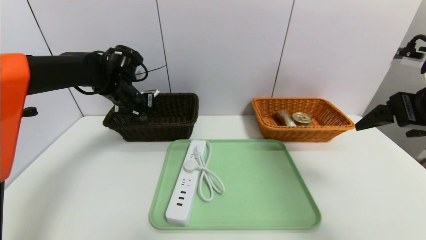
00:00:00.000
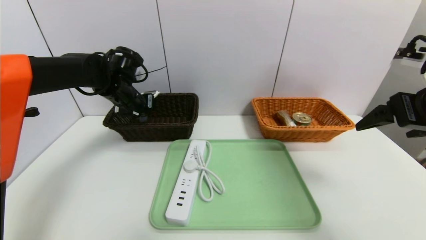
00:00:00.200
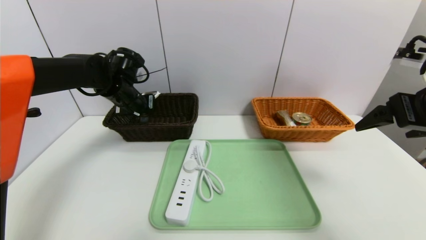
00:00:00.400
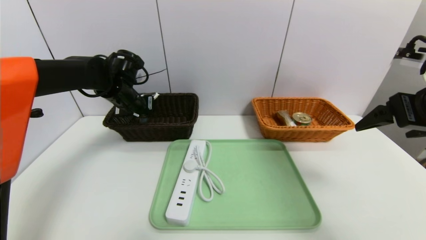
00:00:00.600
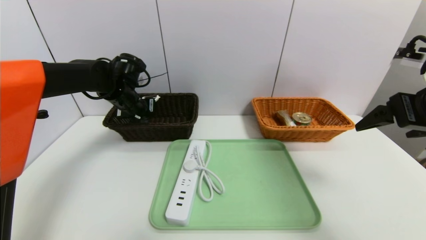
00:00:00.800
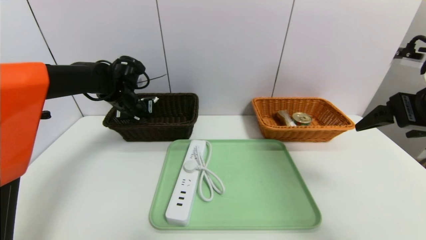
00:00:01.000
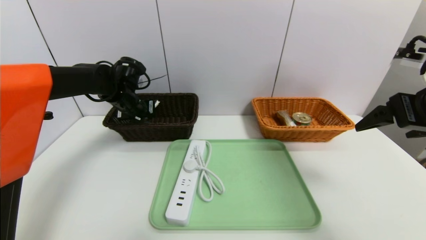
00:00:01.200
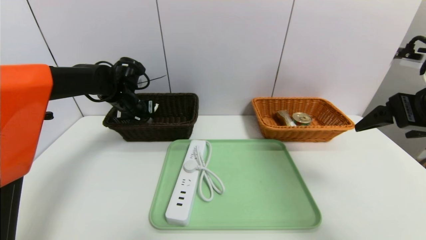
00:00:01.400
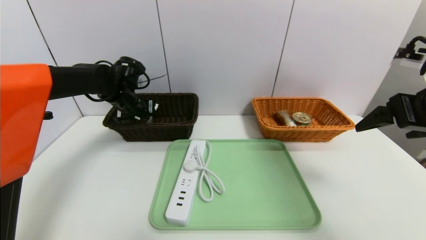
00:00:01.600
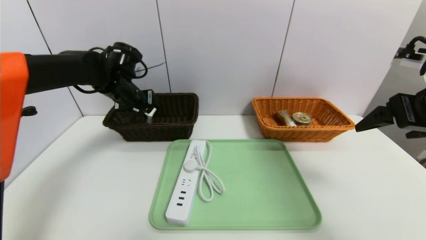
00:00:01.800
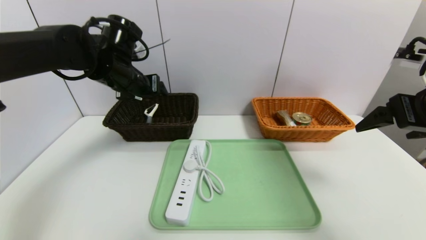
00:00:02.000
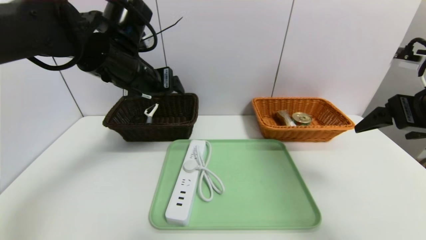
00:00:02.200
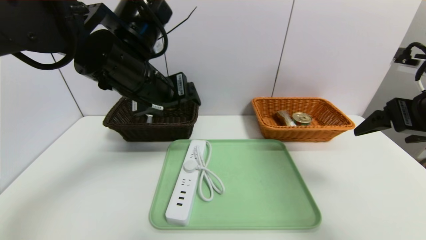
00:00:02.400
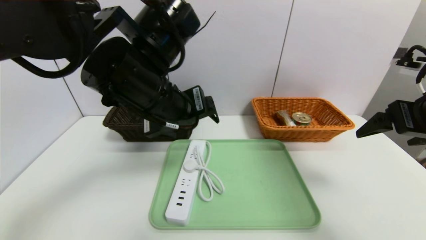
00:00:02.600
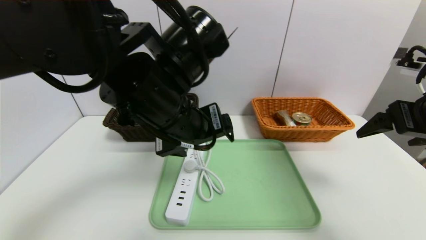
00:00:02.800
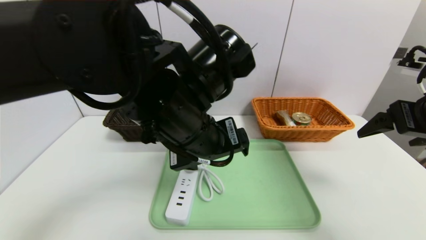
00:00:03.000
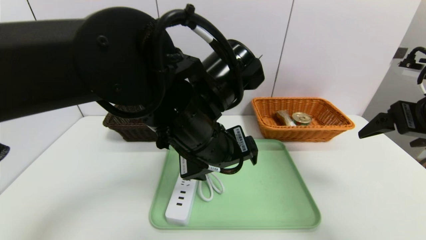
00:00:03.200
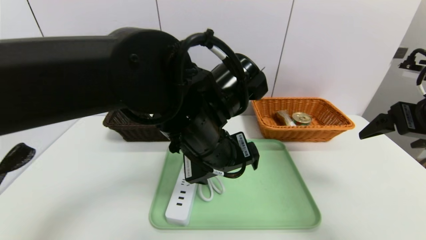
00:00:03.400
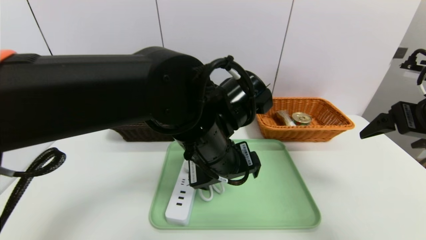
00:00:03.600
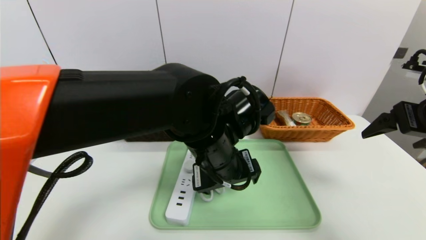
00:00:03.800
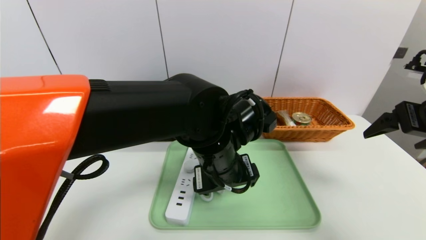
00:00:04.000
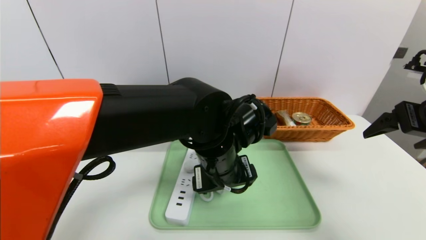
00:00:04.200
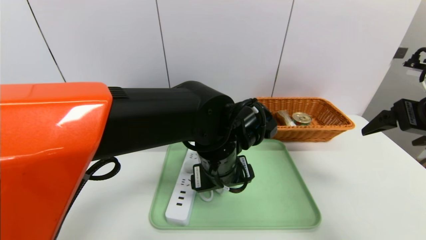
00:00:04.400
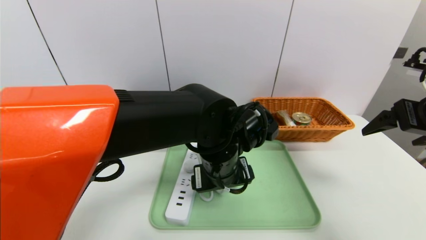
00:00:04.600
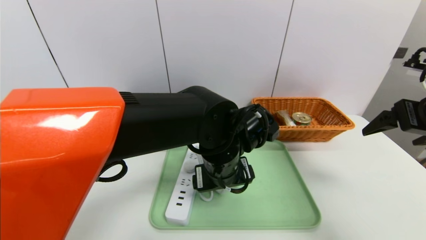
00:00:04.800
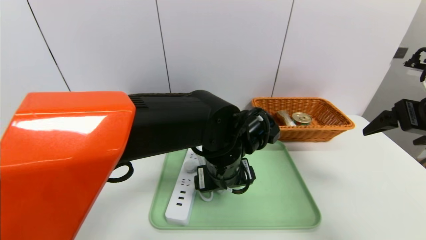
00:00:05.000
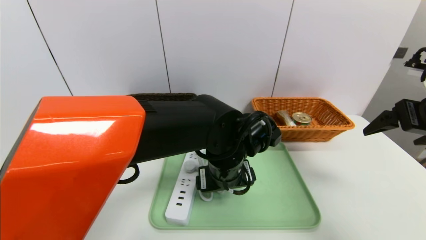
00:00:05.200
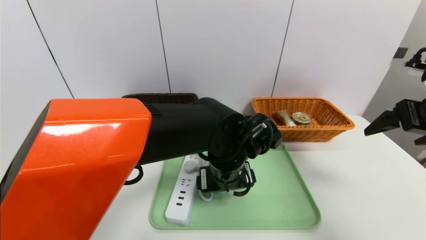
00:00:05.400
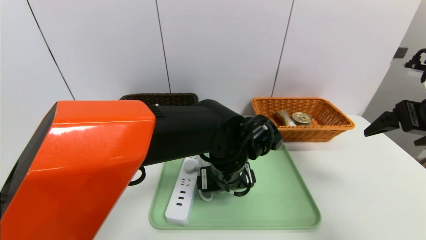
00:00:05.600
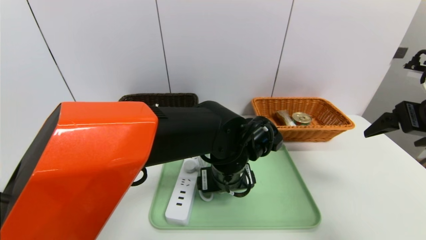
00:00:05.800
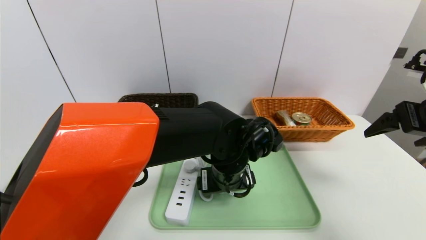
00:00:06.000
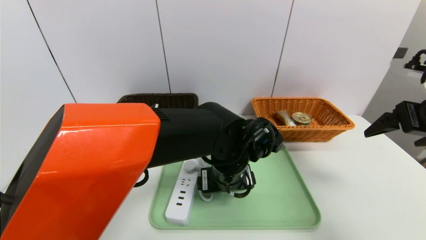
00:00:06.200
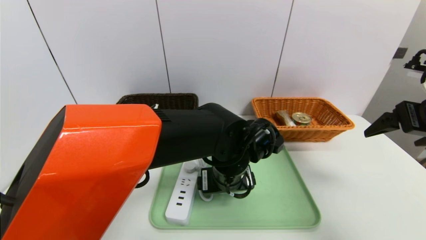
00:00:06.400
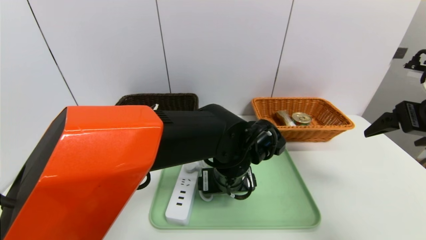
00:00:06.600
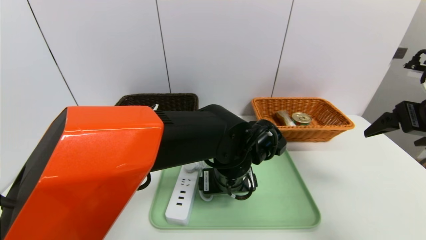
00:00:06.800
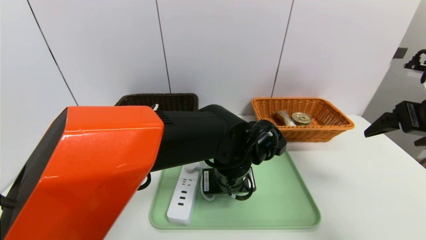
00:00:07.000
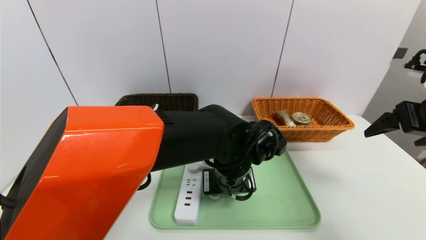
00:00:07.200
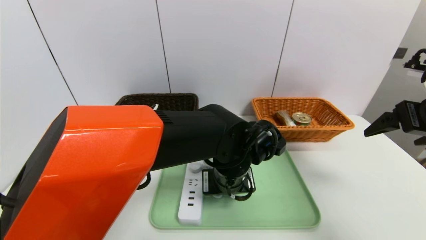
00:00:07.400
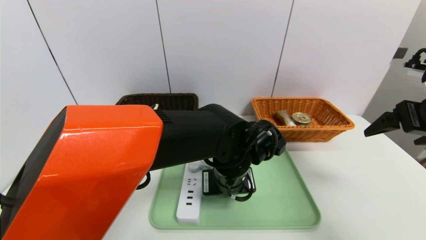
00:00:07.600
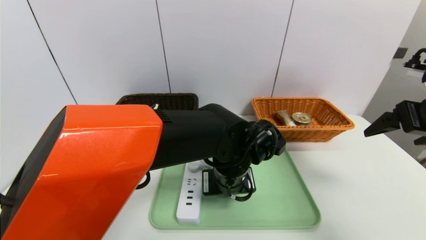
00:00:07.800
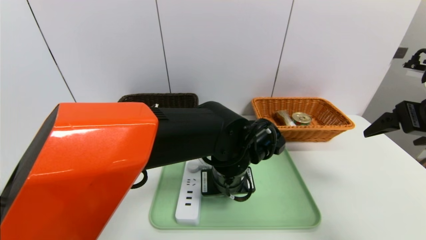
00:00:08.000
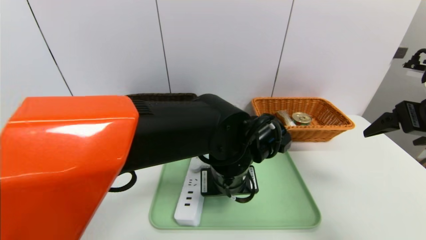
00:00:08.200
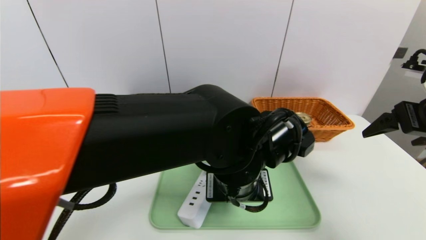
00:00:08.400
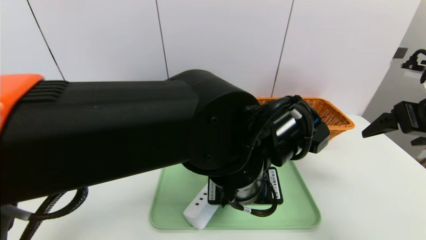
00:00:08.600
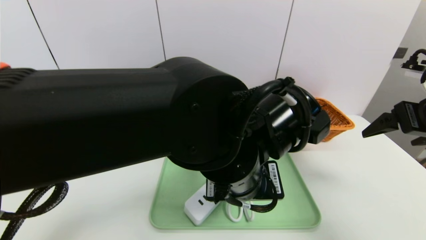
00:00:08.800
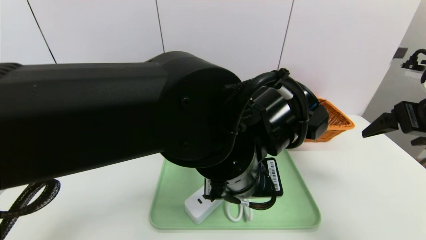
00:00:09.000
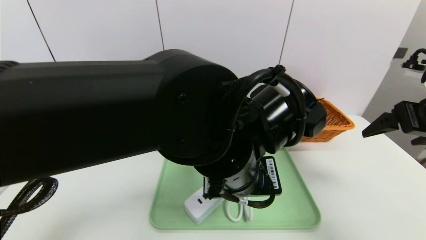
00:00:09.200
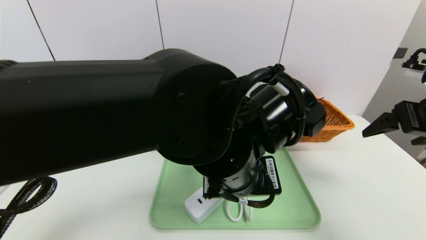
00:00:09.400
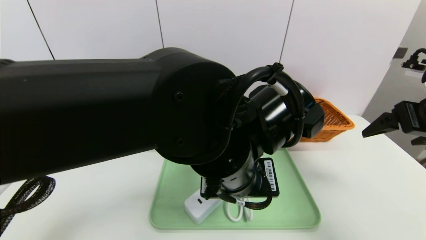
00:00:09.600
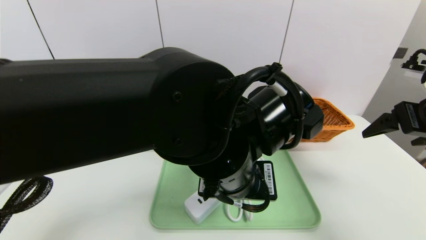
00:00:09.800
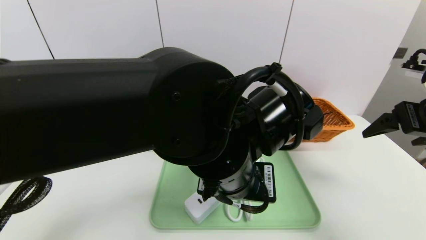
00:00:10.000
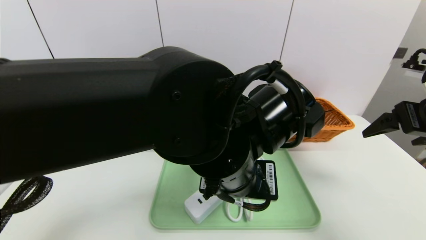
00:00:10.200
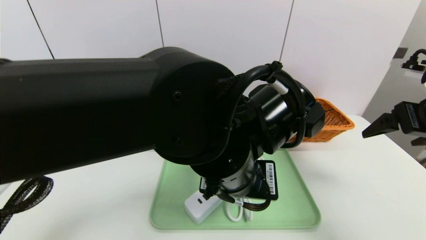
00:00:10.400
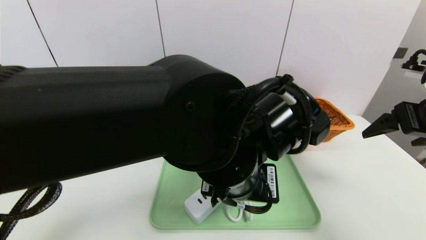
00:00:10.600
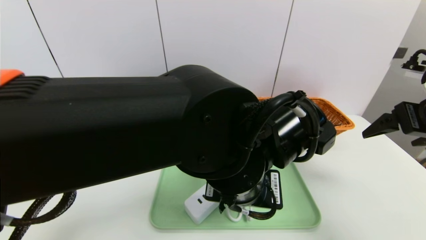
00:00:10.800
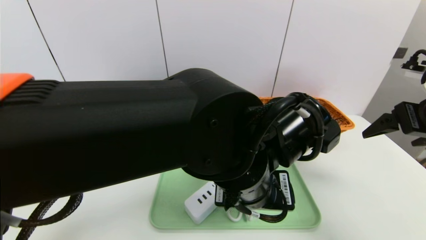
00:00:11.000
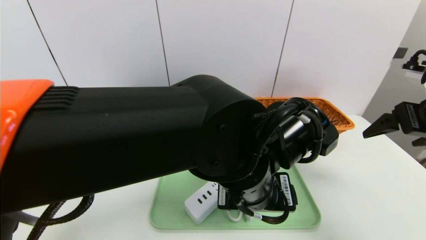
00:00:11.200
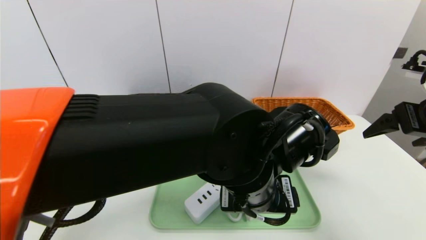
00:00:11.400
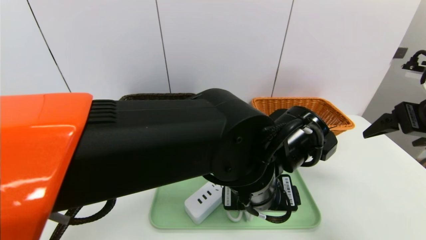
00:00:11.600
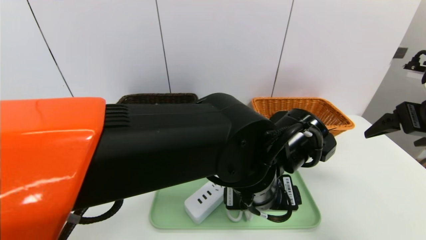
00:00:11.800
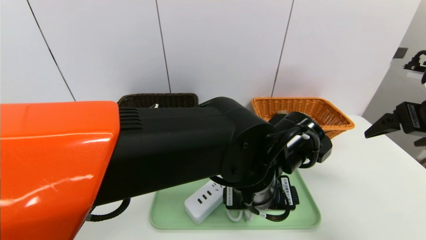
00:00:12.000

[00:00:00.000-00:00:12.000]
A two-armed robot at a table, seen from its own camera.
Task of the whole recording: place the food in the right basket with the right gripper, and place the non food items in the left basket with the left gripper.
Step, 00:00:00.000 to 00:00:02.000: Grasp the peeler and put it in the left basket.
00:00:00.000 to 00:00:01.600: The left gripper opens up.
00:00:01.600 to 00:00:03.000: The left gripper heads backward and to the right, covering approximately 30 cm.
00:00:03.000 to 00:00:04.400: The left gripper travels downward by roughly 10 cm.
00:00:06.000 to 00:00:07.600: The left gripper closes its fingers.
00:00:07.600 to 00:00:09.000: The left gripper travels upward and backward by approximately 10 cm.
00:00:09.000 to 00:00:10.400: The left gripper opens its fingers.
00:00:10.400 to 00:00:12.000: The left gripper travels downward by some 5 cm, and opens its fingers.

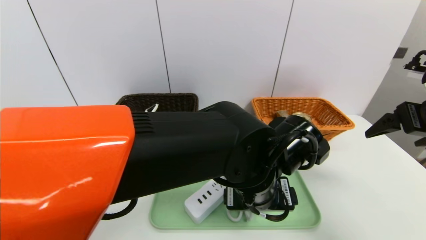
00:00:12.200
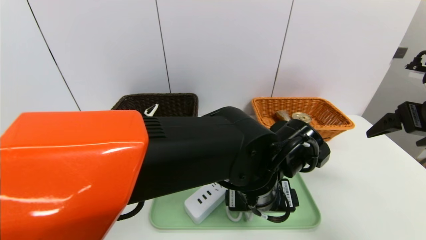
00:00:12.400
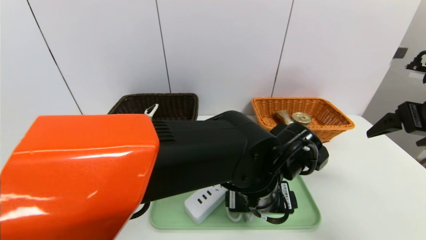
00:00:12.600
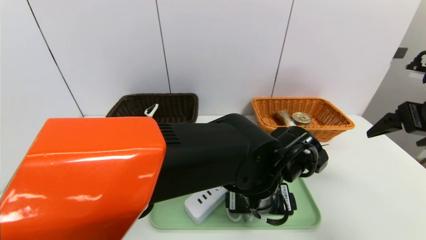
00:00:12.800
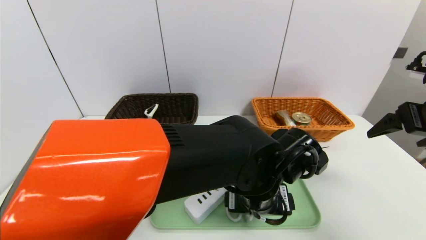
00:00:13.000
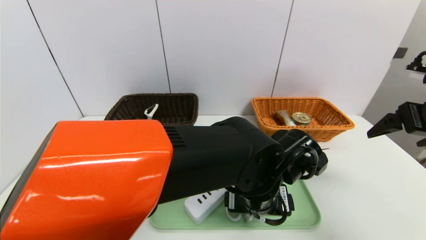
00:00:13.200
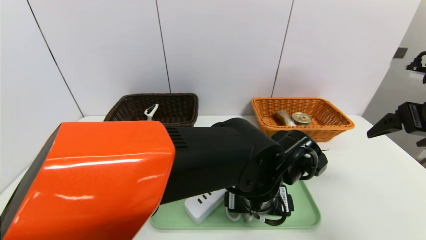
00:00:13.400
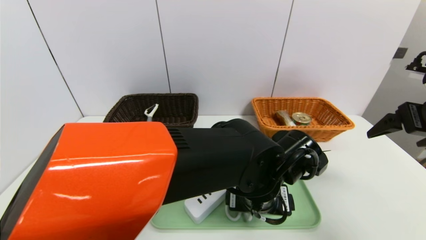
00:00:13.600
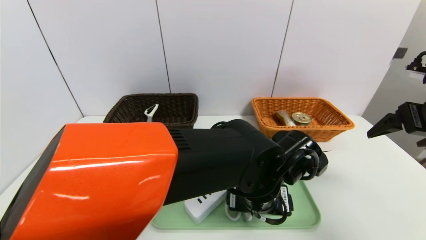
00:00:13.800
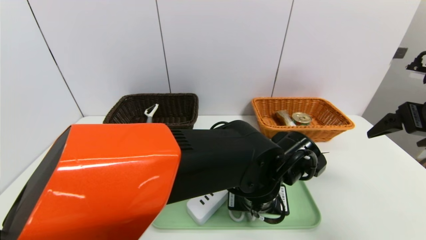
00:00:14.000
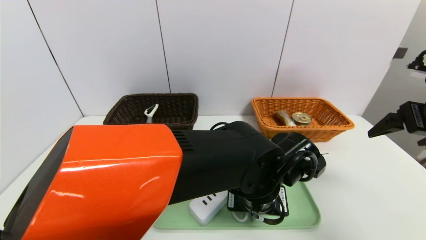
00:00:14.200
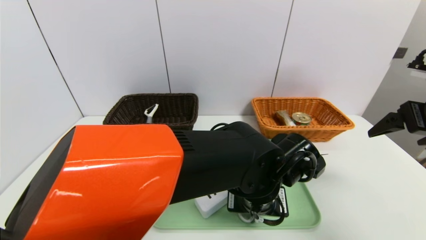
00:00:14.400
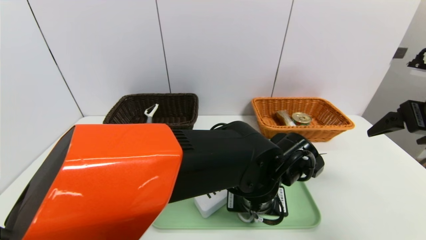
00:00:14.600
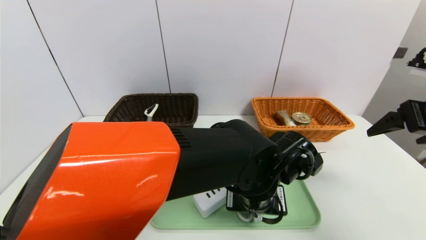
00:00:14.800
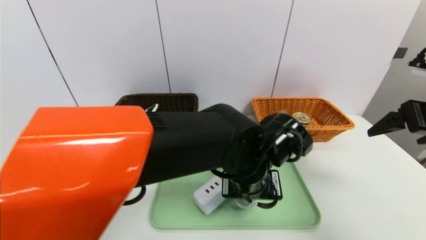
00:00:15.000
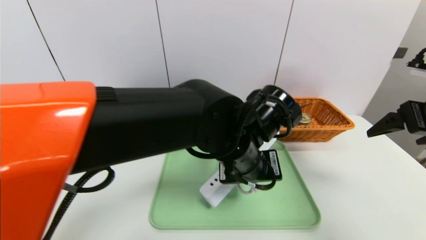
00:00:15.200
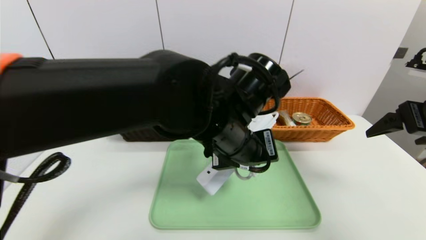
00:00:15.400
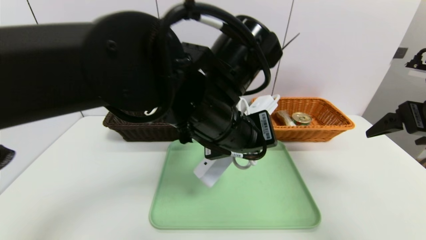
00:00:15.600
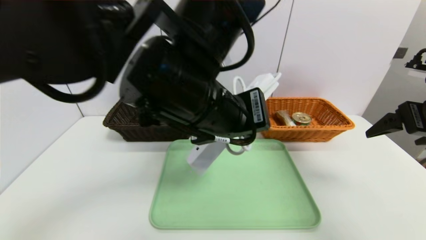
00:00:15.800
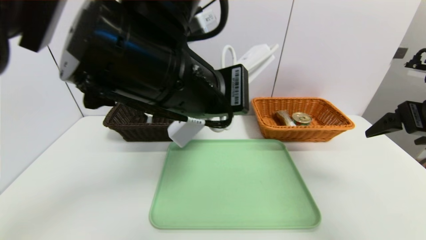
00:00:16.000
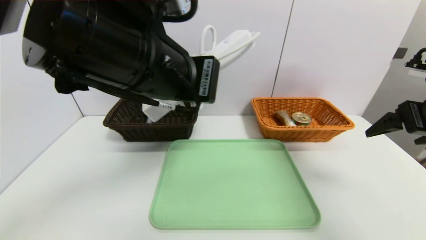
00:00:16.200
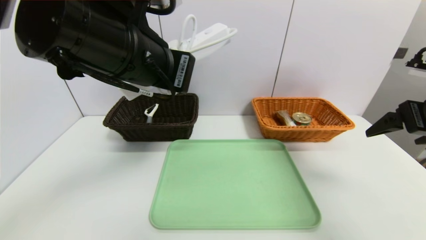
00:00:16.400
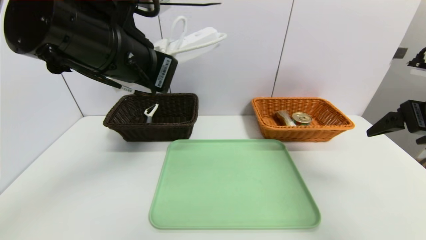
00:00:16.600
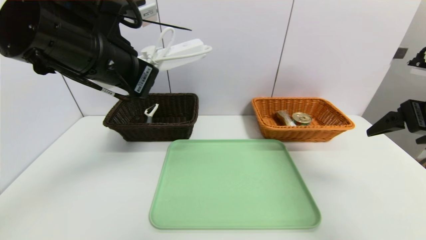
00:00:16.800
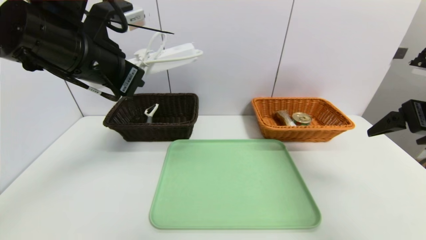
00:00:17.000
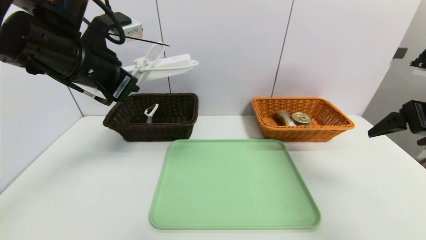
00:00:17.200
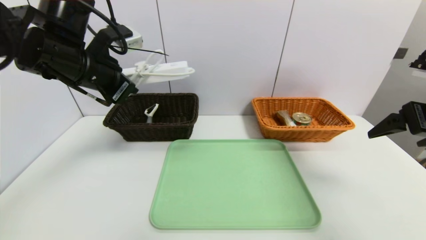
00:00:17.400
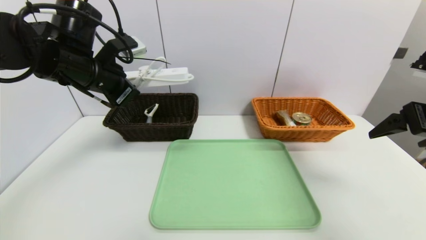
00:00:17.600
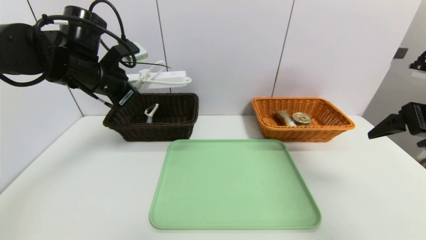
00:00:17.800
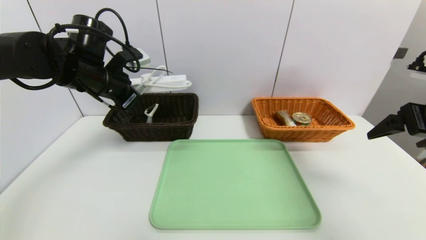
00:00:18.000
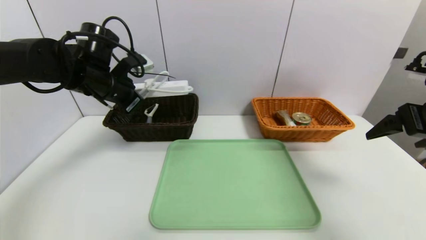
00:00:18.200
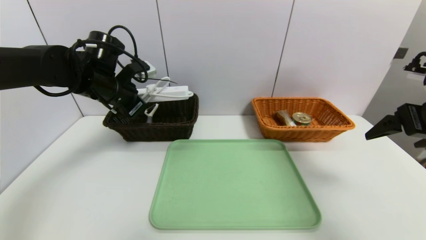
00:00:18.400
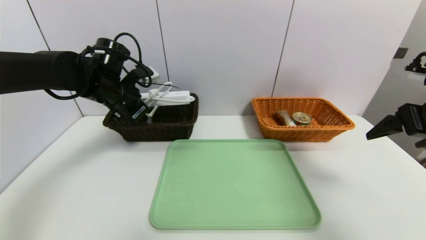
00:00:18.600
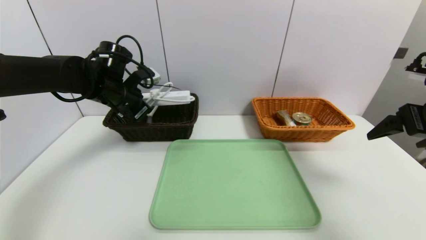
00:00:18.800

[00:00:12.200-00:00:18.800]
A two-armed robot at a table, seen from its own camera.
Task of the whole recording: place the food in the right basket with the right gripper, and place the non food items in the left basket with the left gripper.
00:00:13.800 to 00:00:15.400: The left gripper heads upward and to the left, covering roughly 10 cm, and closes.
00:00:15.400 to 00:00:17.200: The left gripper moves to the left and upward, approximately 25 cm.
00:00:17.200 to 00:00:18.800: The left gripper moves forward and downward, approximately 15 cm.
